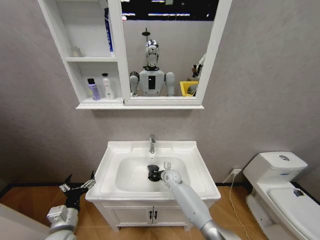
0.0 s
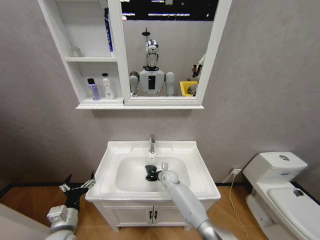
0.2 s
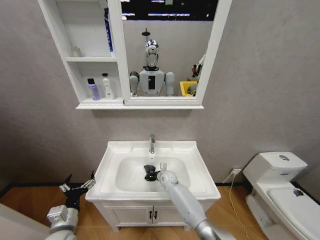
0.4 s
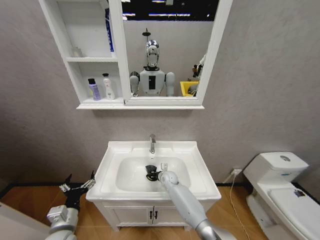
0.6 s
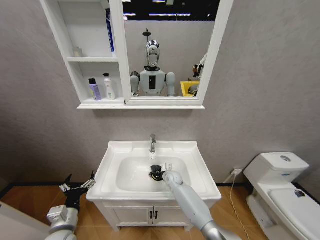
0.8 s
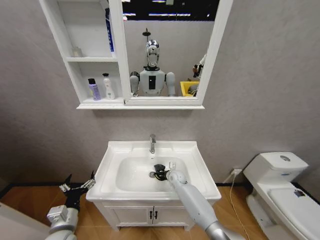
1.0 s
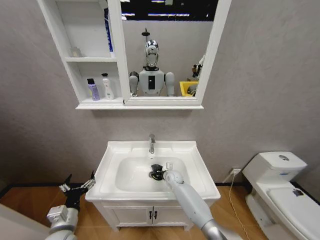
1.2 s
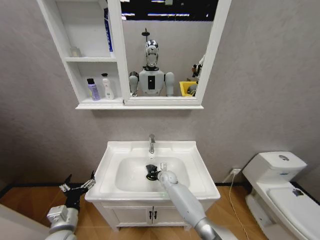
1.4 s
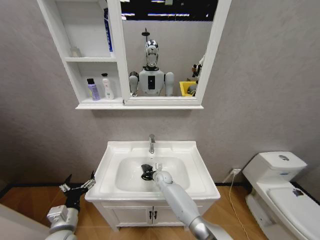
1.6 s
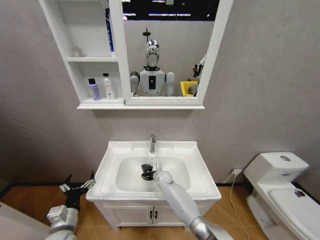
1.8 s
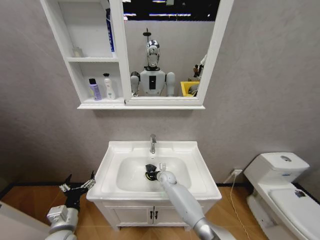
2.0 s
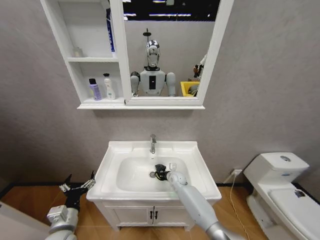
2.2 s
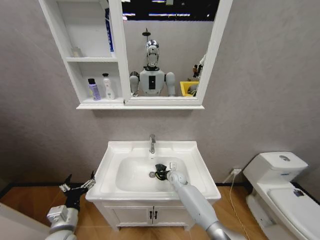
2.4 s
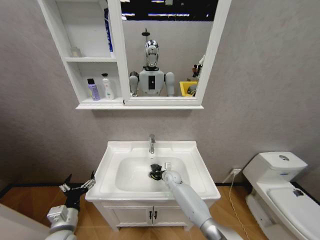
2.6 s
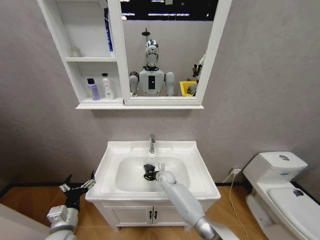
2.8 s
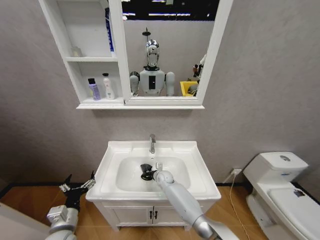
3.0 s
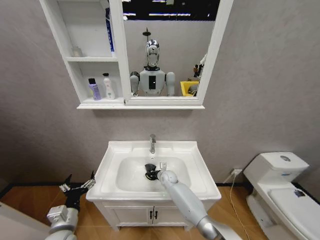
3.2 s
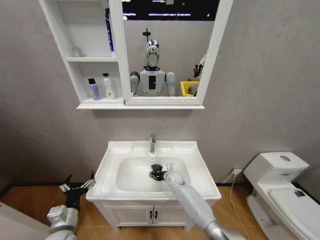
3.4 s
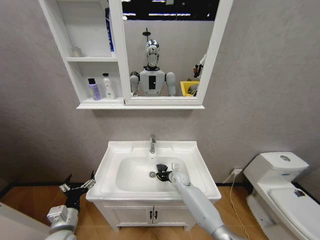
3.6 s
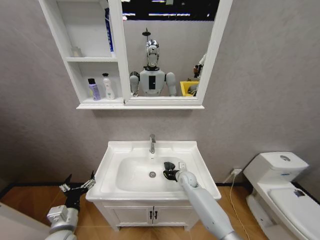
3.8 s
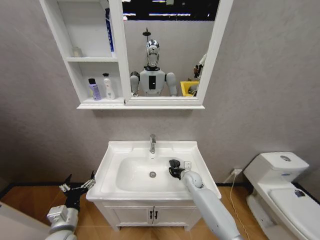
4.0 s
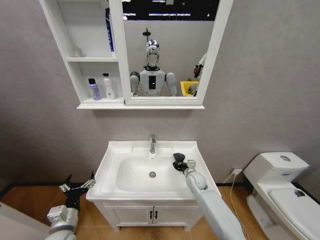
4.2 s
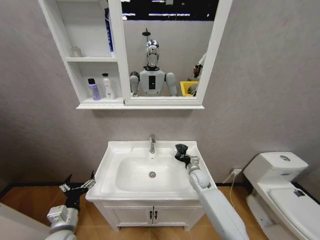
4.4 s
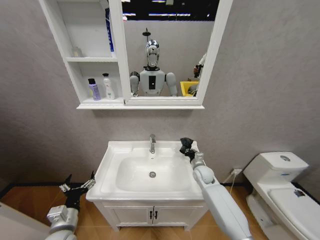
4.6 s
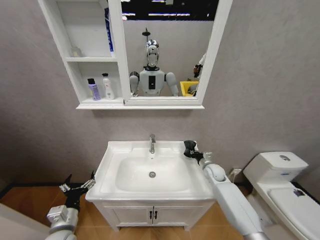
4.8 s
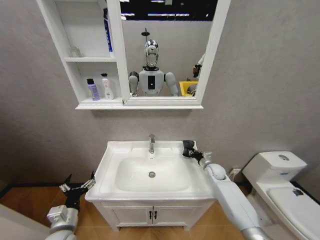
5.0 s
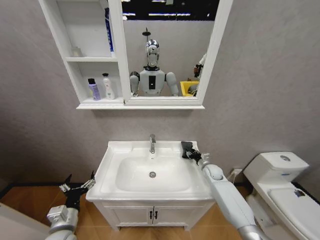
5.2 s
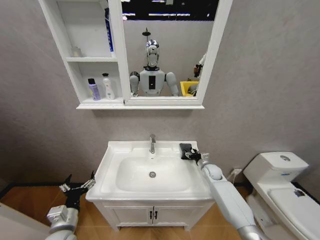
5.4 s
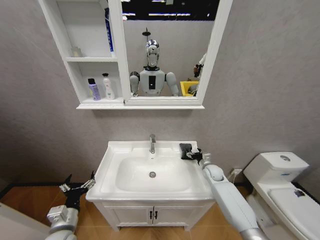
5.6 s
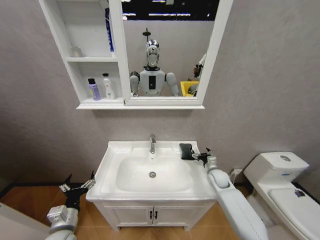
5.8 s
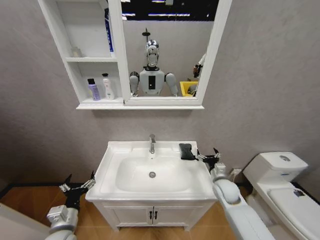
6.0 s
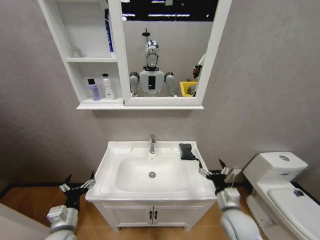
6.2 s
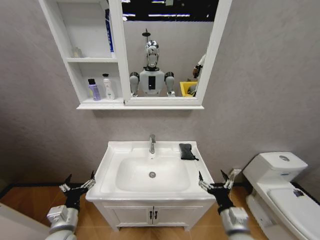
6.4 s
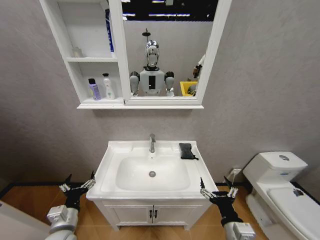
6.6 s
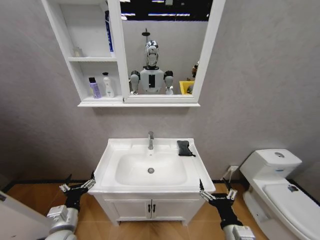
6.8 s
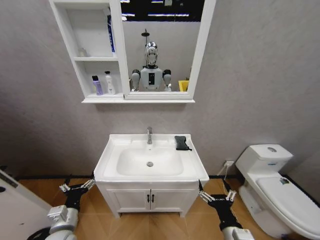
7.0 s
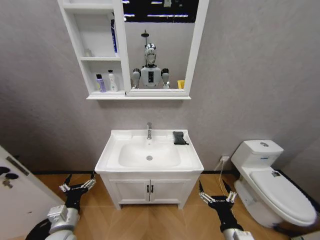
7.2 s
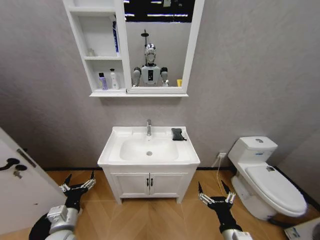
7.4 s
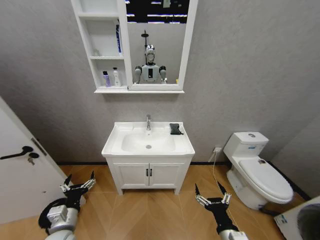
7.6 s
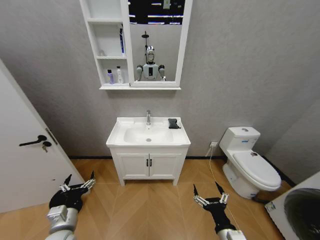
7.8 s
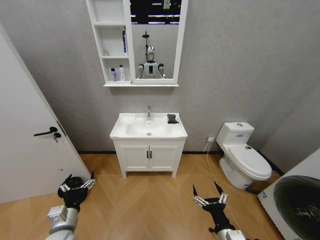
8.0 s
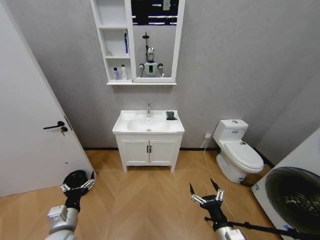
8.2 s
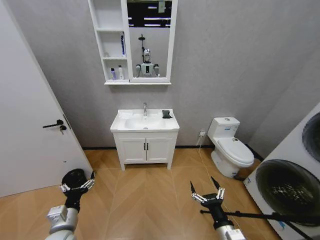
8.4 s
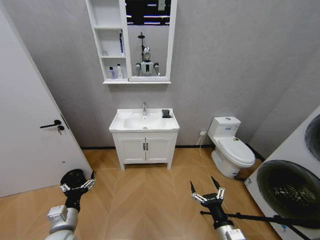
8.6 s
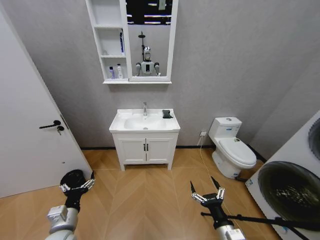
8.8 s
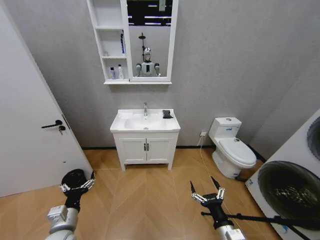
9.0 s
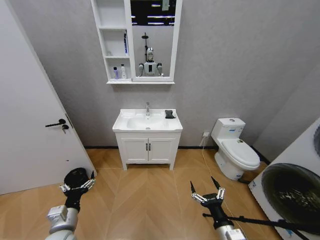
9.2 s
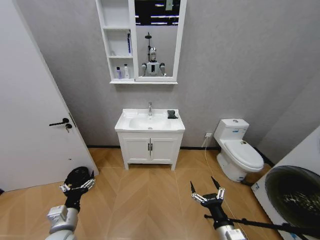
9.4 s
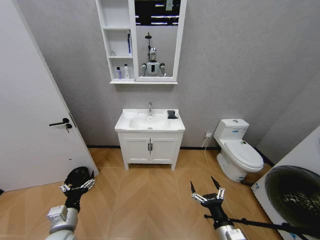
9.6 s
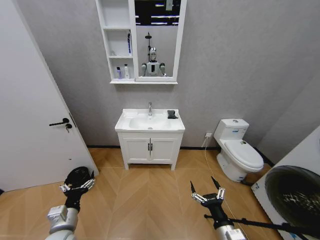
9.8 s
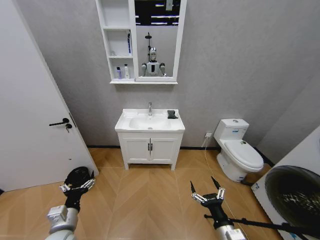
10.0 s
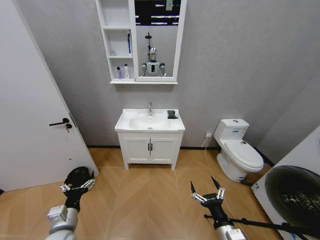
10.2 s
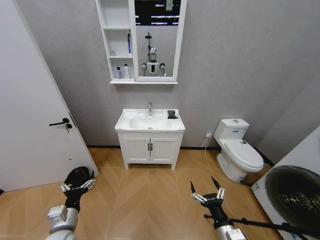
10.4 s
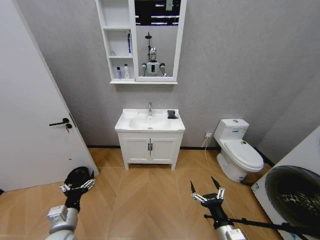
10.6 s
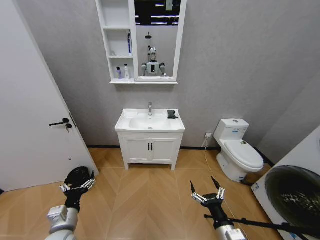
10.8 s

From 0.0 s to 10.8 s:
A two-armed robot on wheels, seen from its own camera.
Task of the whole recording: Move facial cleanser and shampoo from washbasin to cabinet, then wipe washbasin with towel.
From 0.0 s to 1.6 s: The right gripper is displaced to the left by approximately 5 cm.
From 1.6 s to 3.0 s: The right gripper travels to the right and back again, some 10 cm each way.
From 3.0 s to 4.6 s: The right gripper goes about 20 cm to the right and upward.
From 4.6 s to 6.2 s: The right gripper shifts some 20 cm backward, and opens.
From 6.2 s to 7.8 s: The right gripper moves backward, some 10 cm.
From 9.2 s to 10.8 s: The two grippers keep their place.

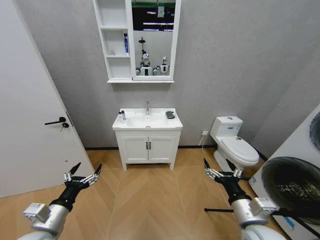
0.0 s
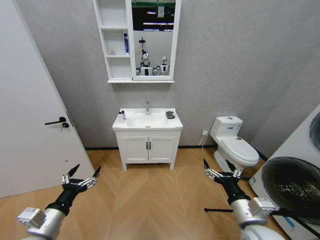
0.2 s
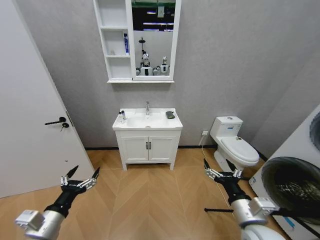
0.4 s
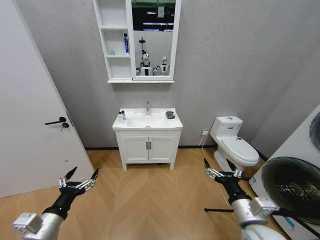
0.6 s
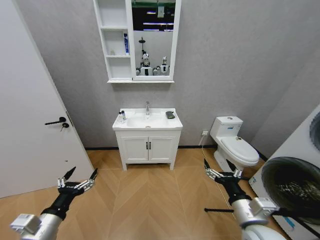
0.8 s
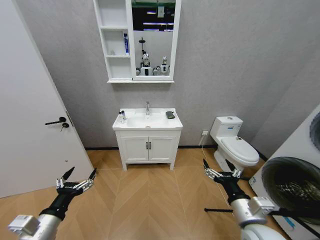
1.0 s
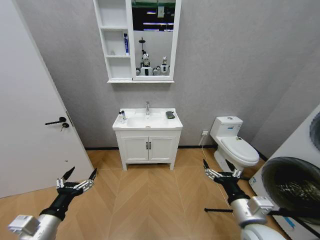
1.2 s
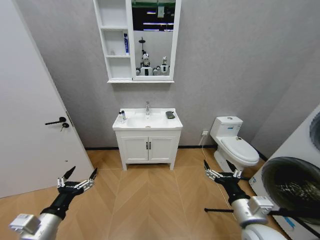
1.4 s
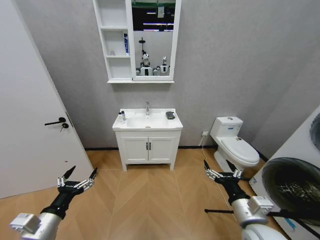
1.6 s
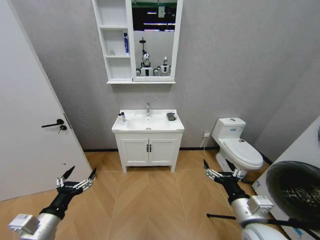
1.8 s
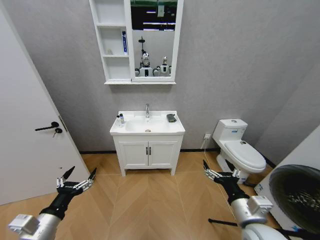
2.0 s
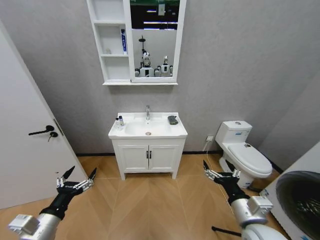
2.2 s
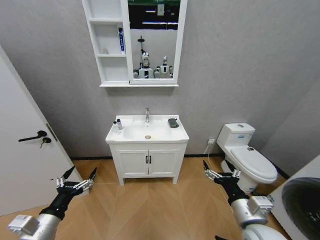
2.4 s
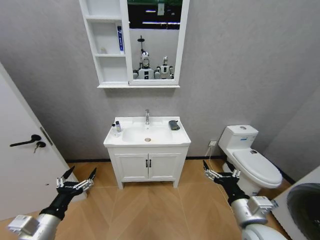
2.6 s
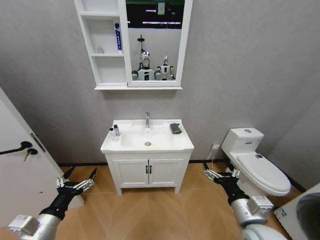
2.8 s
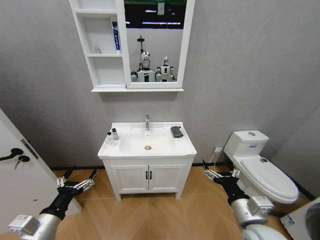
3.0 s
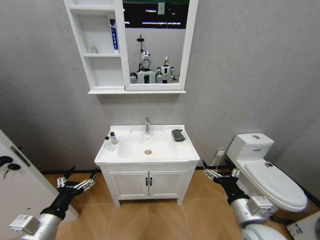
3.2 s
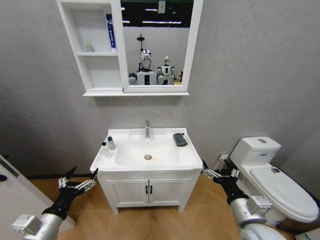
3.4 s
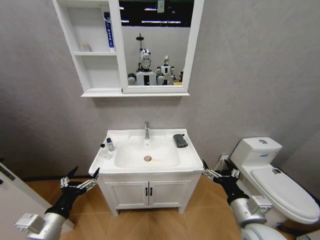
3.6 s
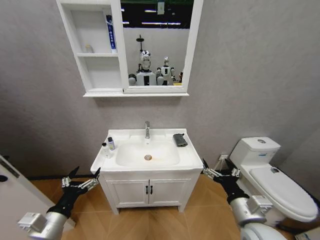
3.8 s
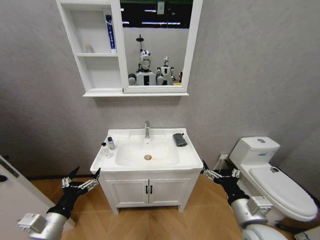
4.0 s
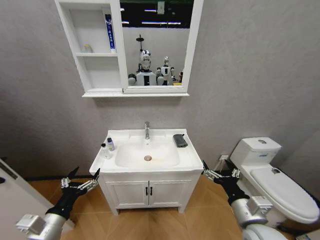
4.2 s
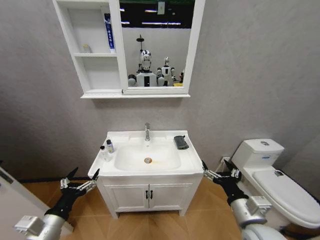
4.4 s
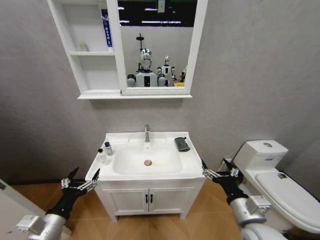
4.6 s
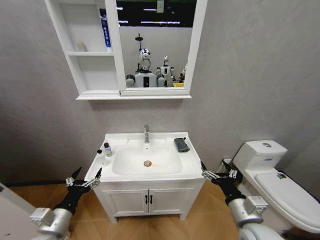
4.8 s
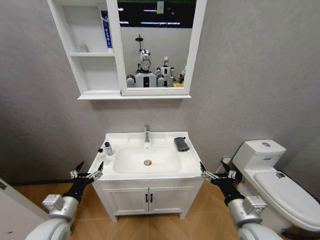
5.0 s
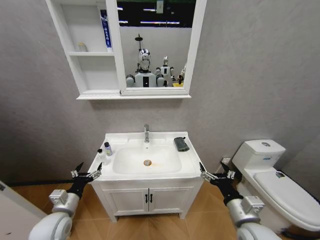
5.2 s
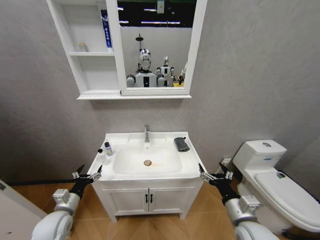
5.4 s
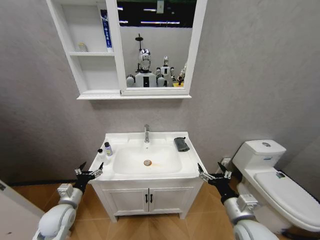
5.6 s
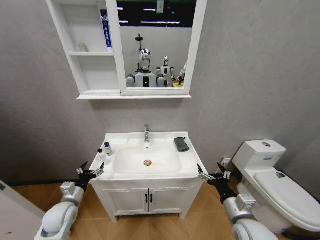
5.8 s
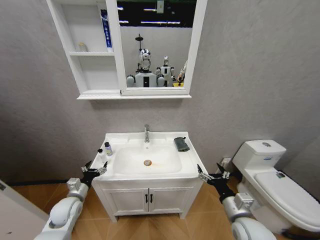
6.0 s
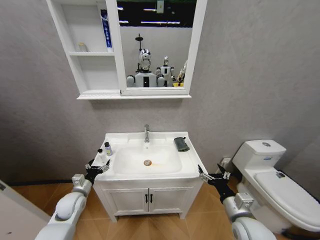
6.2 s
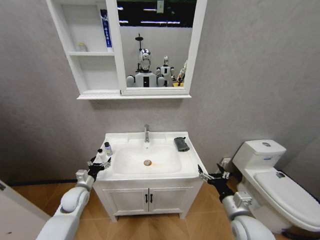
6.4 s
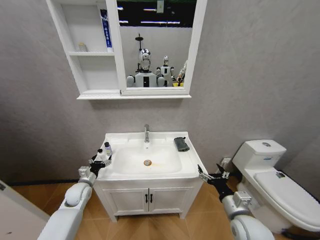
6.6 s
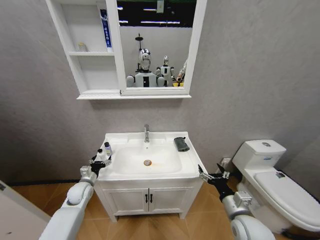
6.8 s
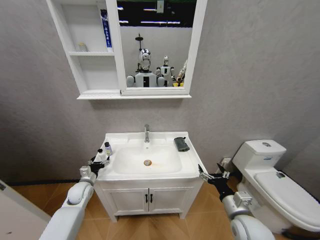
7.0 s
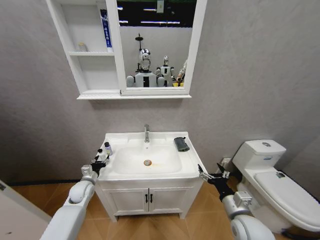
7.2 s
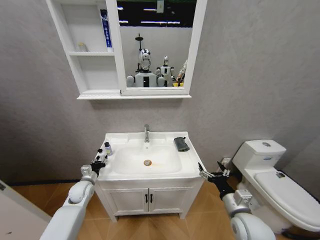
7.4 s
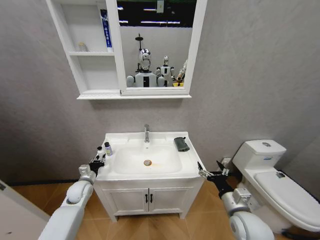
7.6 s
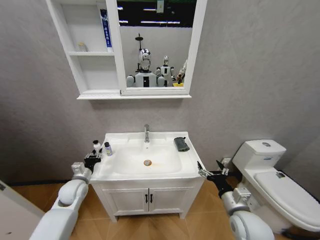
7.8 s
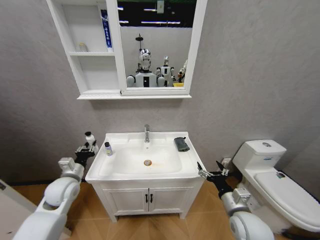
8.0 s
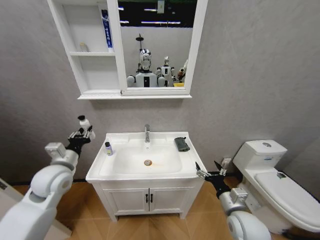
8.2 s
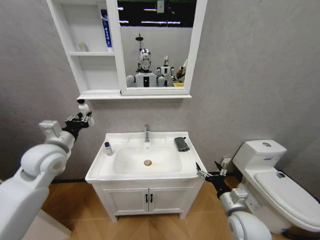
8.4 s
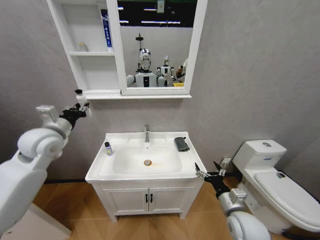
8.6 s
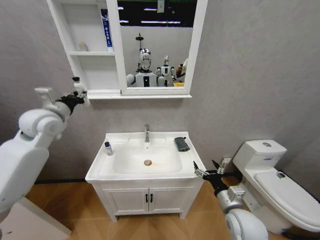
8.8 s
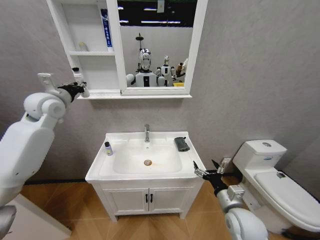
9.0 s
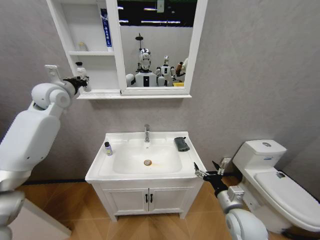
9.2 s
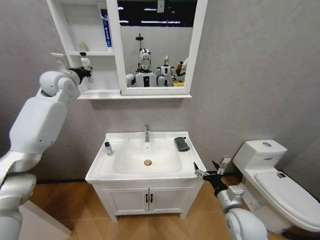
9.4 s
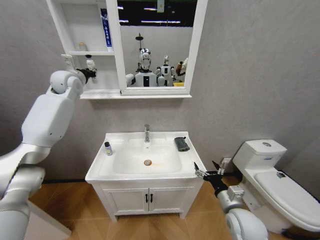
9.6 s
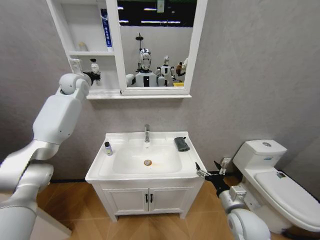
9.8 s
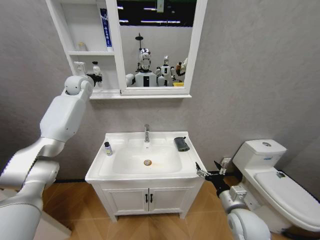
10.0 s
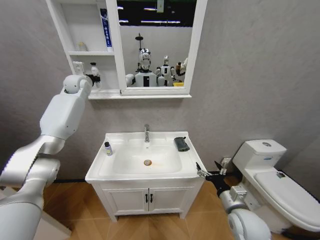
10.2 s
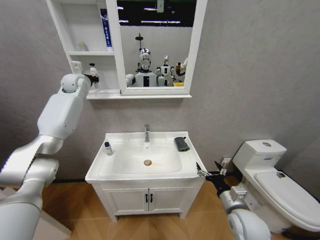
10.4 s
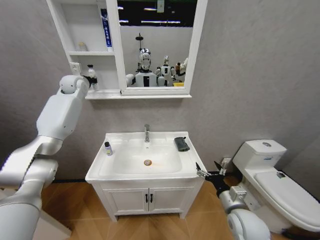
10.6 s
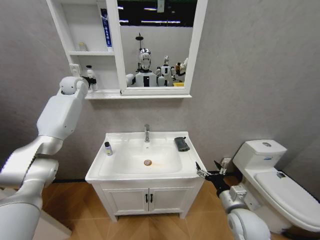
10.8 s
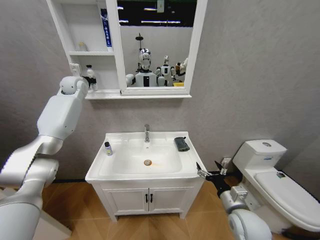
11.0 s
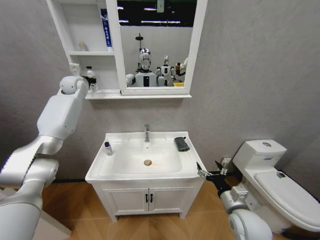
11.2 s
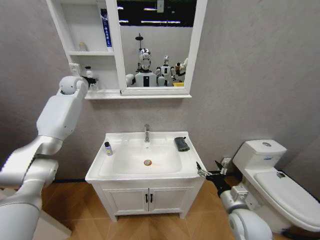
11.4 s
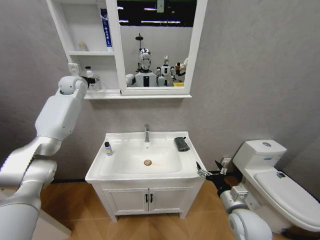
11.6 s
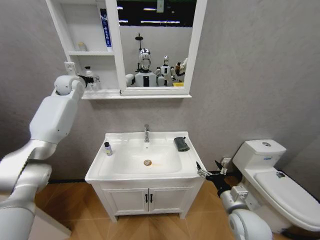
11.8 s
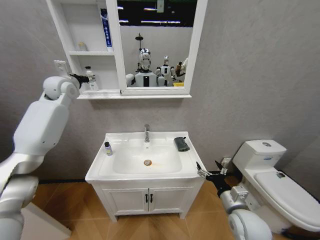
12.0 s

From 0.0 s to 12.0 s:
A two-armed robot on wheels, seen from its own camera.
Task of the whole recording: Move facial cleanser and shampoo from washbasin to cabinet, then wipe washbasin with towel.
From 4.4 s to 6.0 s: The left gripper heads forward and downward, covering roughly 15 cm, while the right gripper shifts by roughly 5 cm.
From 6.0 s to 7.6 s: The left gripper is displaced forward by about 10 cm, and closes up.
From 7.6 s to 9.0 s: The left gripper heads upward, covering roughly 40 cm.
From 9.0 s to 10.4 s: The left gripper heads forward, covering about 15 cm.
From 10.4 s to 12.0 s: The left gripper goes approximately 10 cm backward, and opens its fingers.
